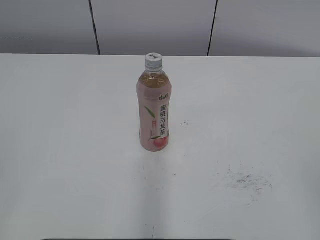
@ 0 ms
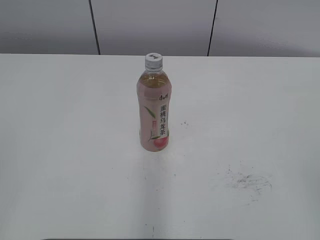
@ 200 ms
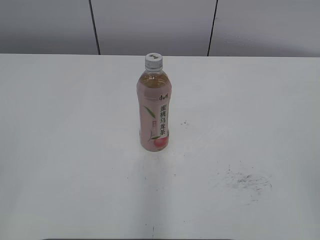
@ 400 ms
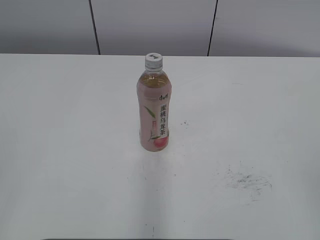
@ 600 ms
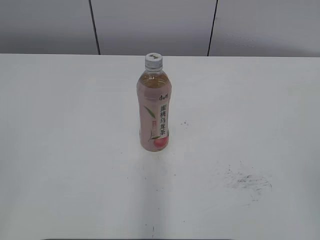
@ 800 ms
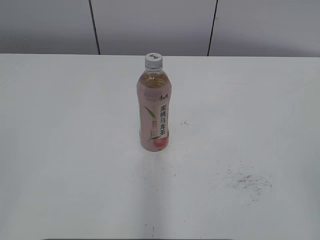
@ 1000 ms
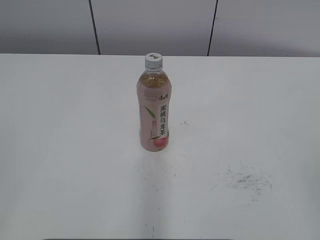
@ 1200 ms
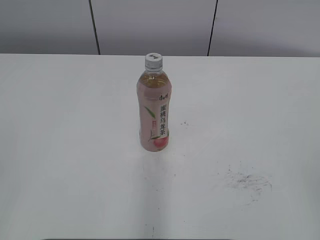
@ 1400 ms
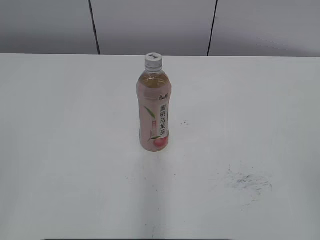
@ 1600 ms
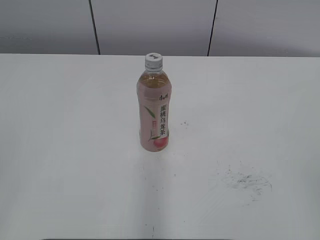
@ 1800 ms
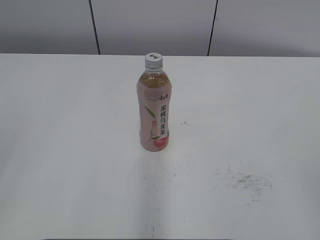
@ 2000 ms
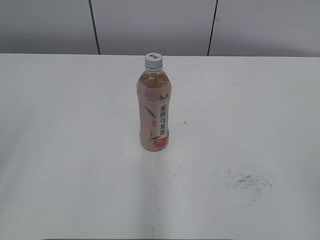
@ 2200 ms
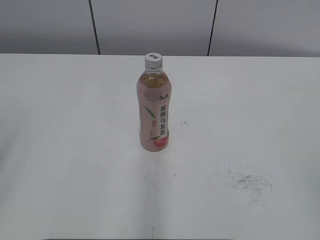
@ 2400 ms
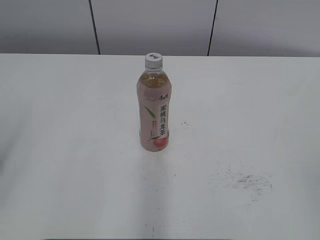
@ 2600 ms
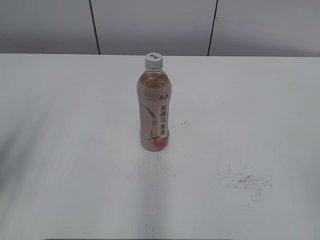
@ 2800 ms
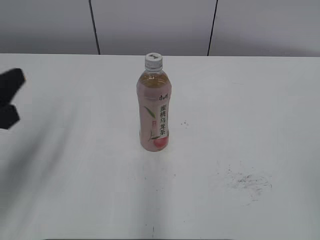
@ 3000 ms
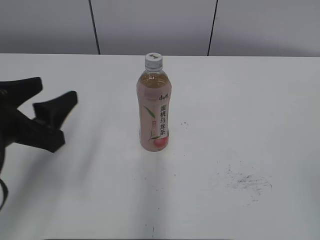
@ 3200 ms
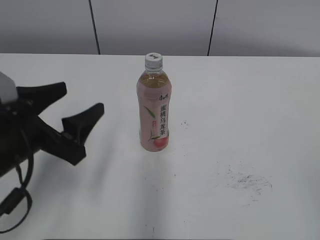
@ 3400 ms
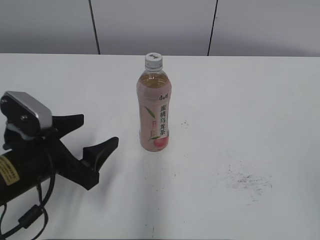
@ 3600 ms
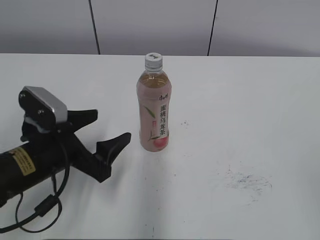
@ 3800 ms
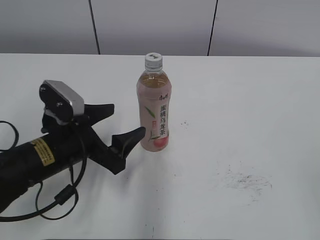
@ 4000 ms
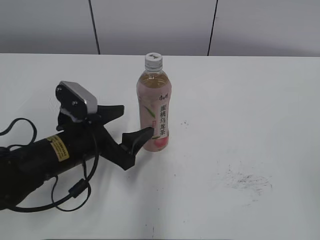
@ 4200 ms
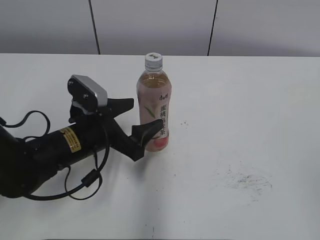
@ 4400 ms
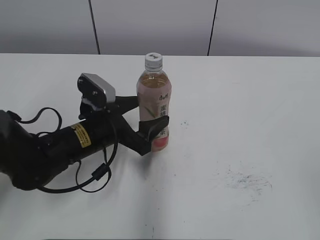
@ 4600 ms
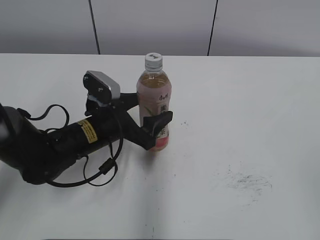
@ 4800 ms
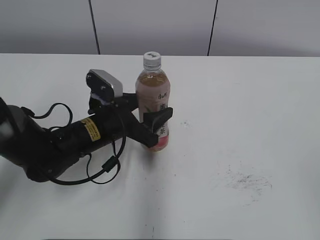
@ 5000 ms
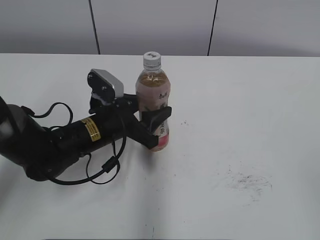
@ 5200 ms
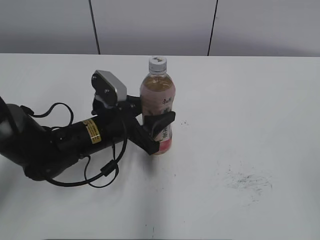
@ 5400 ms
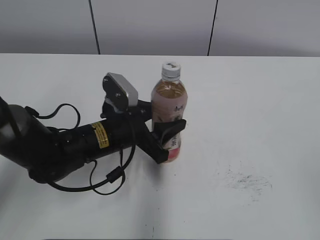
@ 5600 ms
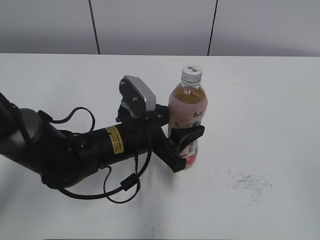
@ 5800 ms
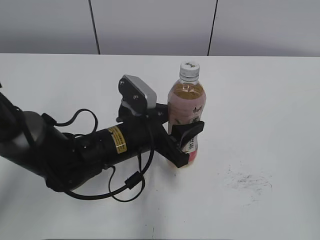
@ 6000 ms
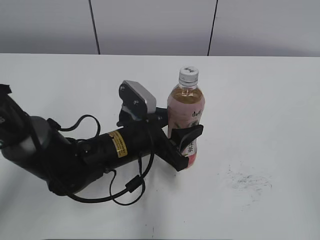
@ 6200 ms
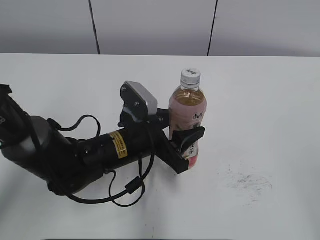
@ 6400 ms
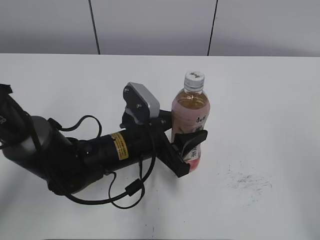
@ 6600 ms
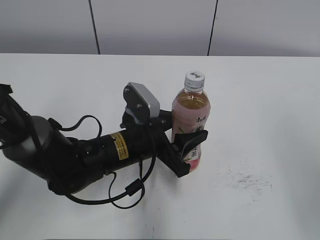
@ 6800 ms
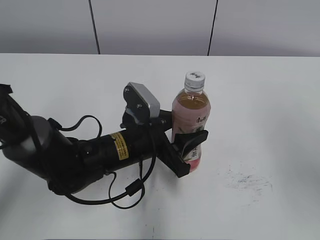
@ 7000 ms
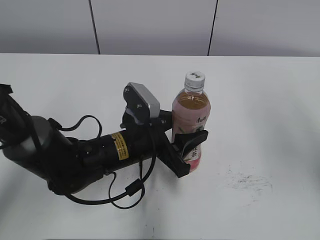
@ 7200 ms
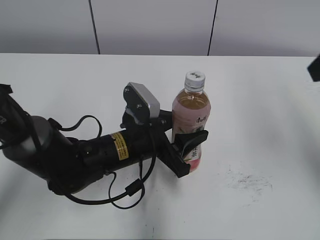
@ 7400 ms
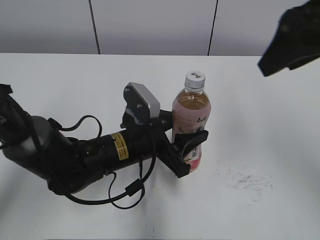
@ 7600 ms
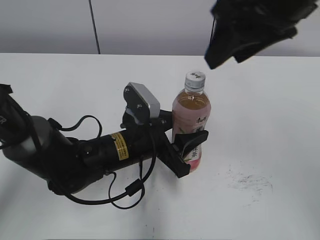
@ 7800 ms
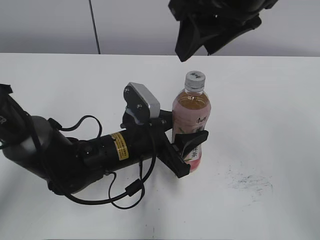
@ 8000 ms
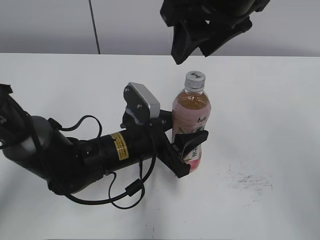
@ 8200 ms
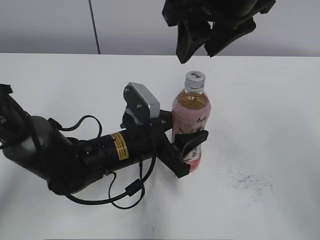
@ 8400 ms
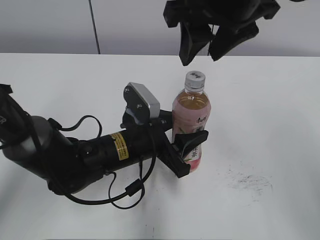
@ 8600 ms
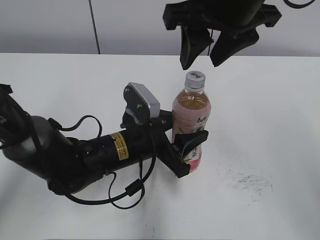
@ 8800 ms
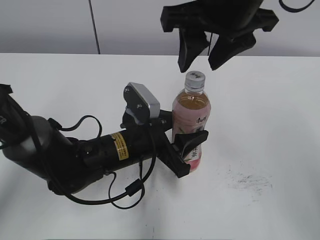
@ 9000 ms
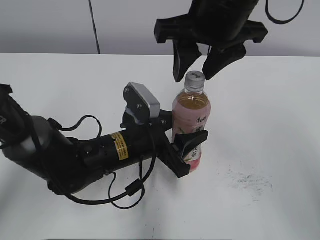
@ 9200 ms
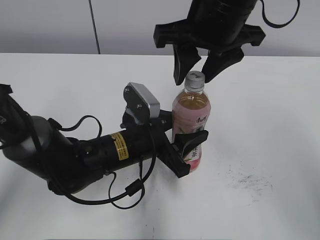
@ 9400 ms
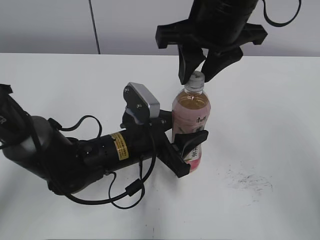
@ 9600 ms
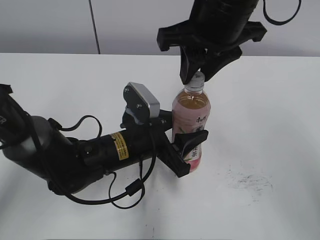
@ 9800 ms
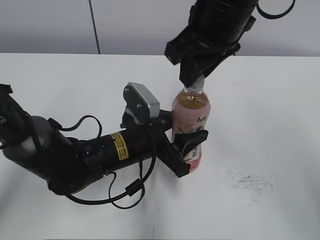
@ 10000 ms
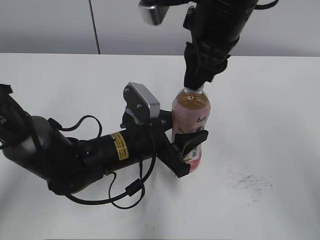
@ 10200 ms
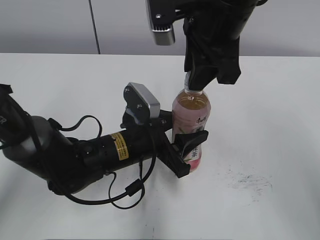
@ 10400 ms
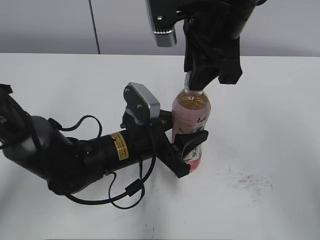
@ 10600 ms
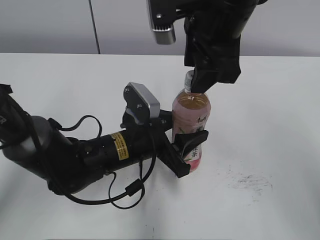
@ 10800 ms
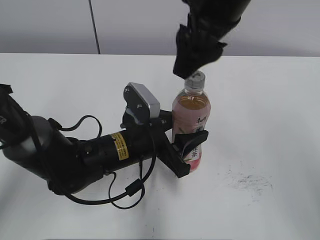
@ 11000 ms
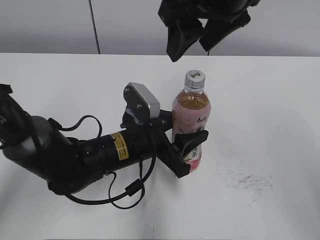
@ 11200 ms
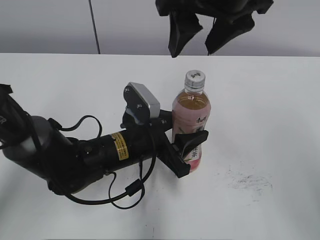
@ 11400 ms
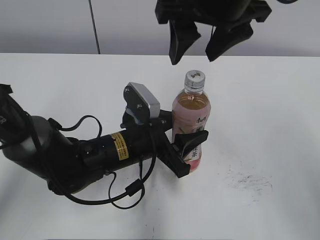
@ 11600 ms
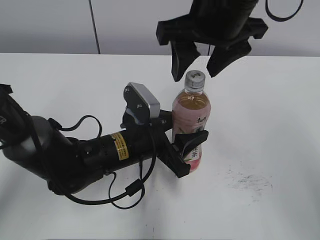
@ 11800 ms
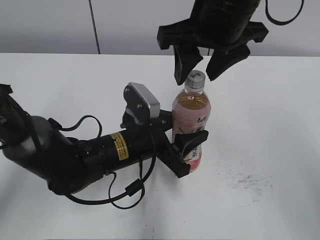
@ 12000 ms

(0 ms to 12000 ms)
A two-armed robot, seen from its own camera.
Step, 0 ms - 5000 ms: Grab the Peach Oolong Tea with the left hand.
Step, 5200 ms - 9000 ms: Move the Peach Oolong Tea from left to right.
1600 ms - 3000 ms: The left gripper moves forward, approximately 20 cm.
3000 ms - 4400 ms: The left gripper is displaced to the right, downward and forward by roughly 20 cm, and opens its fingers.
4400 ms - 6000 ms: The left gripper shifts roughly 5 cm to the right, and closes.
6000 ms - 7600 ms: The right gripper moves forward and to the left, approximately 30 cm.
7600 ms - 9000 ms: The right gripper is displaced to the left by about 10 cm.
9000 ms - 10400 ms: The right gripper closes its fingers.
10400 ms - 12000 ms: The right gripper opens up.

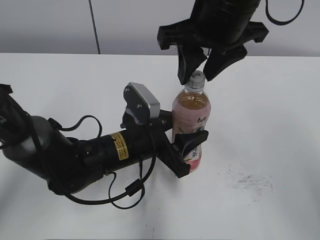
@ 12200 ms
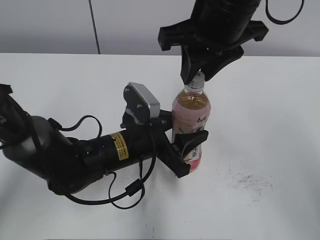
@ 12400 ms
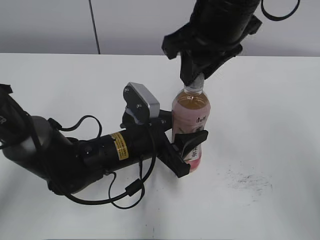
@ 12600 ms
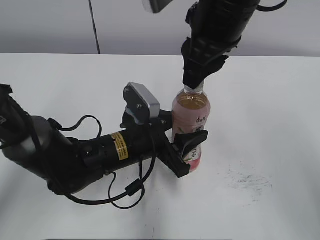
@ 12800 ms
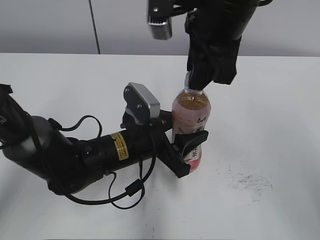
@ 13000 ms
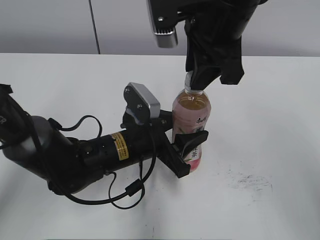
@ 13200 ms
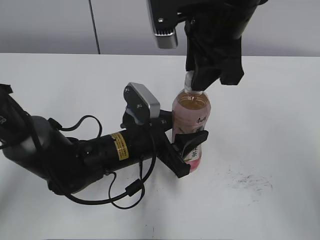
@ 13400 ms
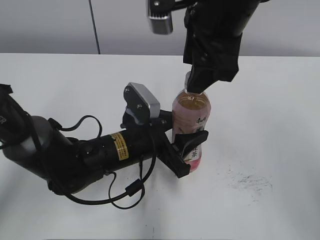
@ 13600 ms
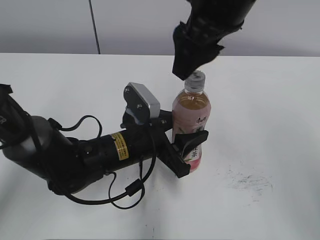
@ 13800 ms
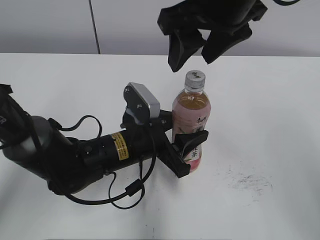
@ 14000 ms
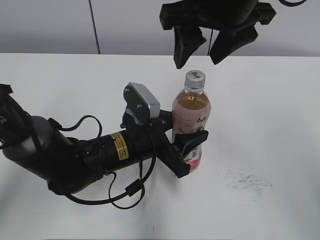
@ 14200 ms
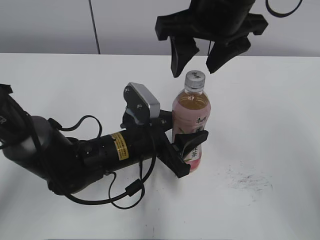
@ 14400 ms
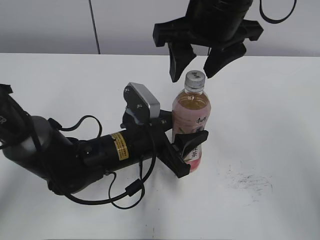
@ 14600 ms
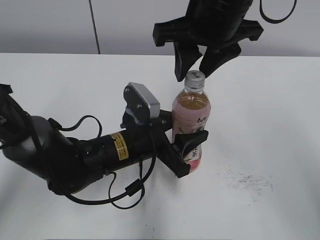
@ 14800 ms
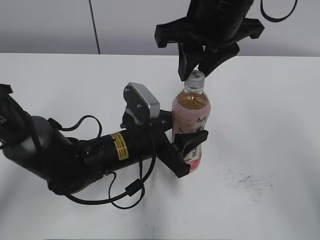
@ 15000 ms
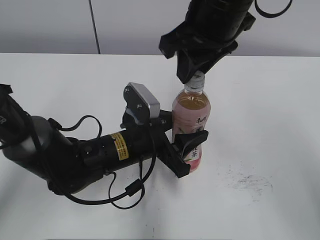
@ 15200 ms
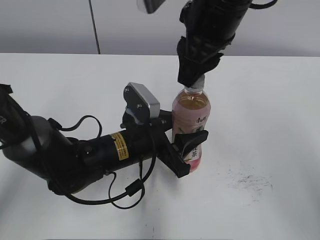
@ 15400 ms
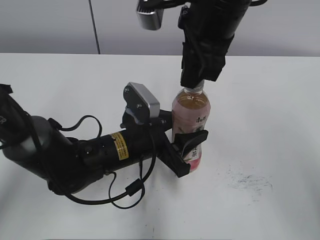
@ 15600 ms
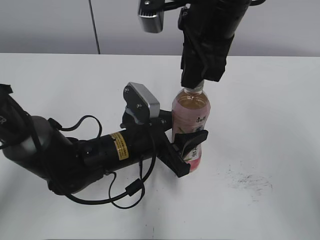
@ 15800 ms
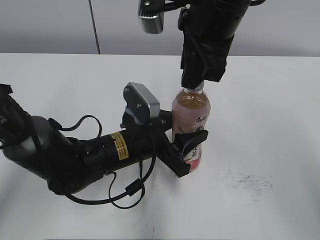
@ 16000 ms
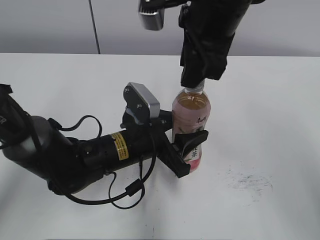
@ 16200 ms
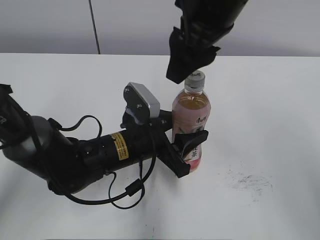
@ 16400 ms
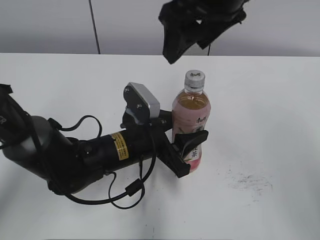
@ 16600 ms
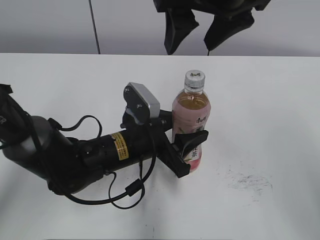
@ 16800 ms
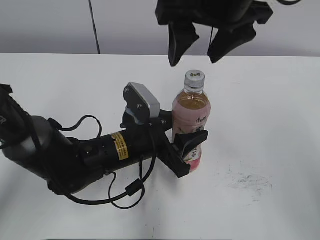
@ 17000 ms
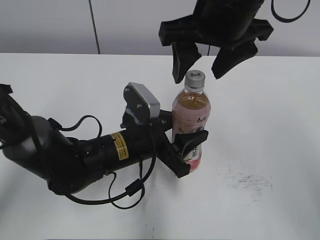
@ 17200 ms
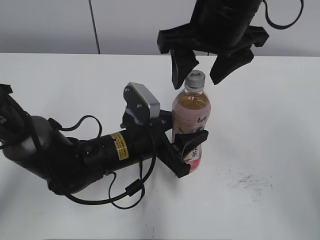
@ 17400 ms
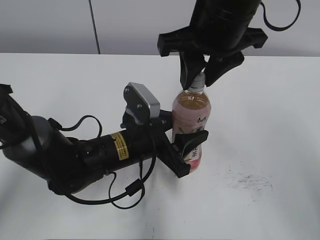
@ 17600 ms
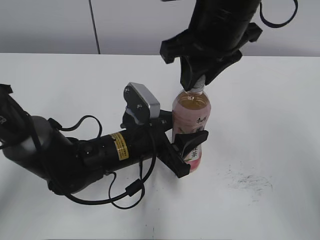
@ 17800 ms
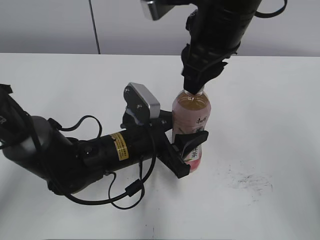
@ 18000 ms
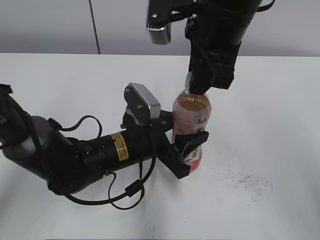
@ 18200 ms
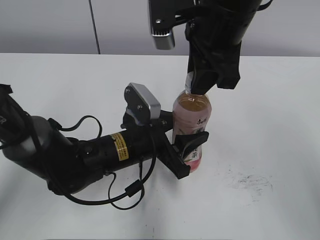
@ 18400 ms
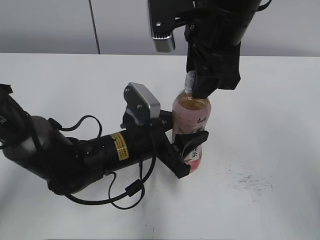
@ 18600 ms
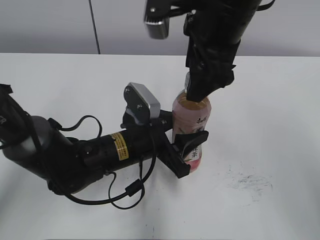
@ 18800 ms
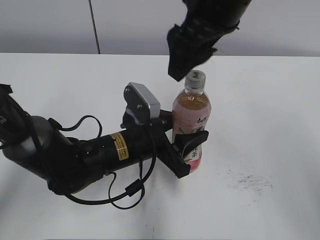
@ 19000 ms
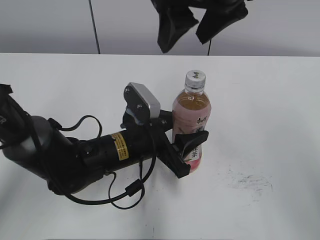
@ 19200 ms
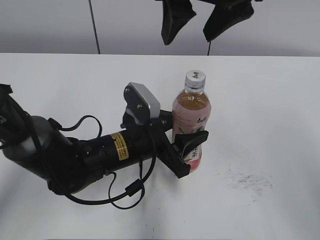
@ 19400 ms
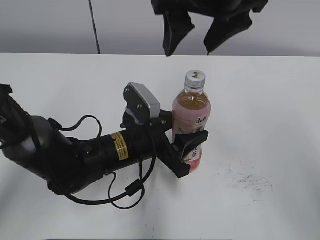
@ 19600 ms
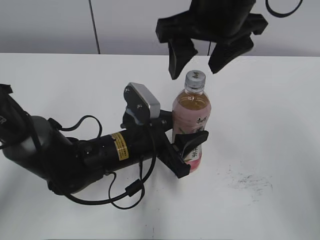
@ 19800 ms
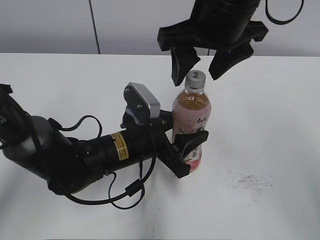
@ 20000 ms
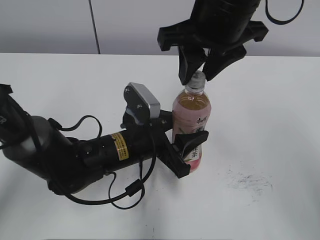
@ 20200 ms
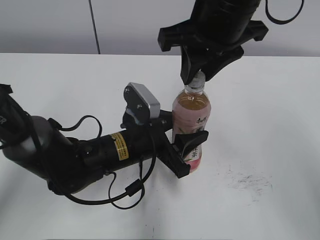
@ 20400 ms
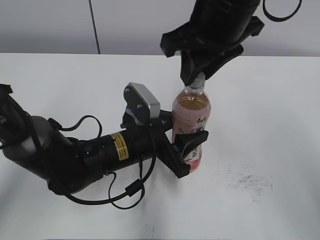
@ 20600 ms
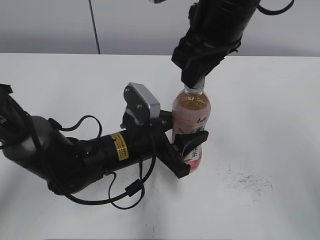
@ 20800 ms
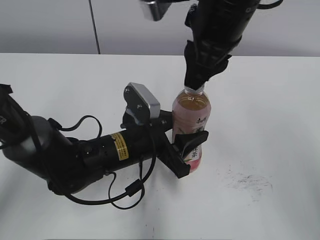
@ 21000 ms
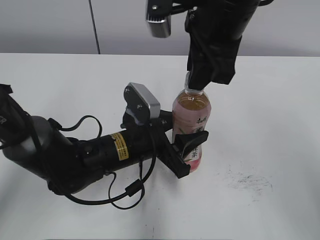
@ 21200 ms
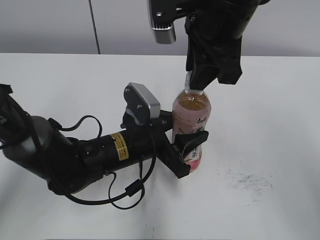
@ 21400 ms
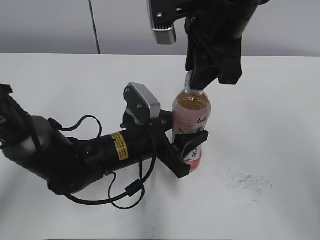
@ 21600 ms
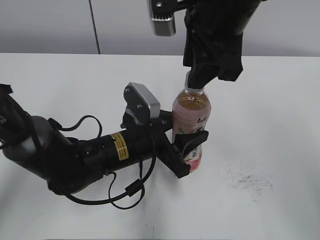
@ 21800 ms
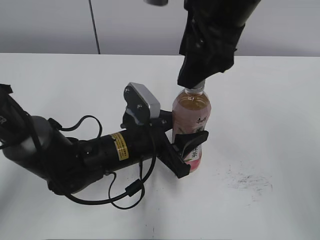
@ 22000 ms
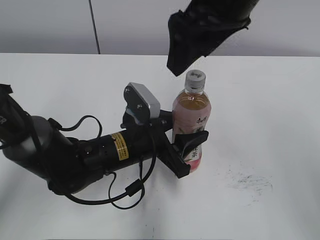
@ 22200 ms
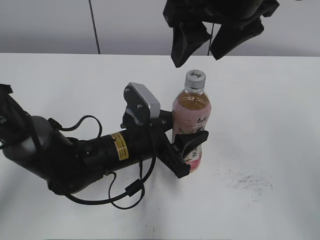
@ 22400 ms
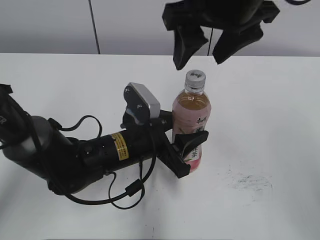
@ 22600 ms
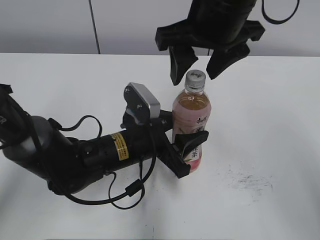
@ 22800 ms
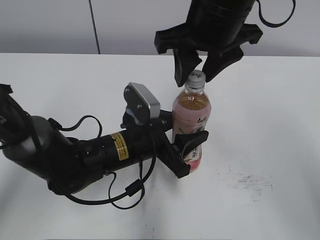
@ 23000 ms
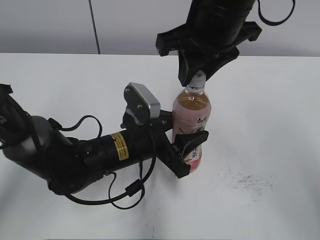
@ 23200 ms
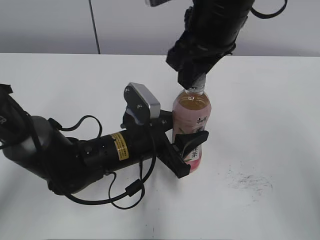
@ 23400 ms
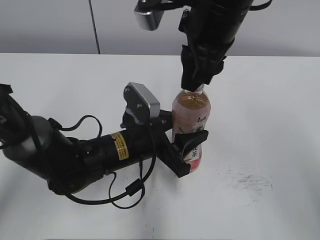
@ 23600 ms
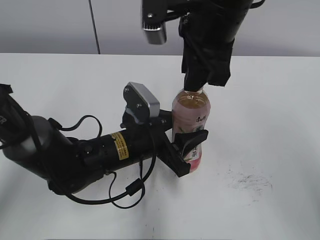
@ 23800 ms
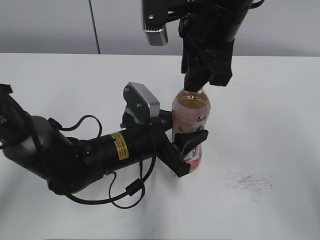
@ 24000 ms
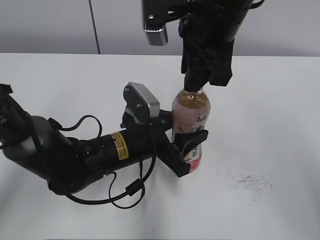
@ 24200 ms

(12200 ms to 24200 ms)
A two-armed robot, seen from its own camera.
12200 ms - 13800 ms: The right gripper opens.
13800 ms - 15200 ms: The right gripper closes its fingers.
15200 ms - 16600 ms: The right gripper opens.
16600 ms - 18200 ms: The right gripper closes.
18200 ms - 19800 ms: The right gripper opens.
19800 ms - 21200 ms: The right gripper closes its fingers.
21200 ms - 22600 ms: The right gripper opens up.
22600 ms - 24200 ms: The right gripper closes.
